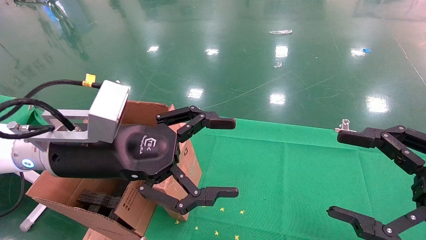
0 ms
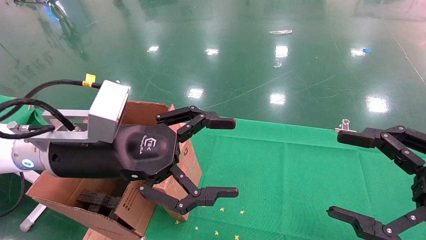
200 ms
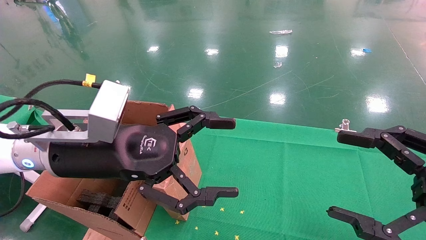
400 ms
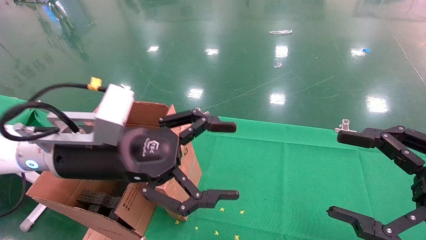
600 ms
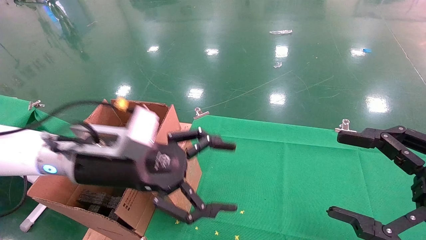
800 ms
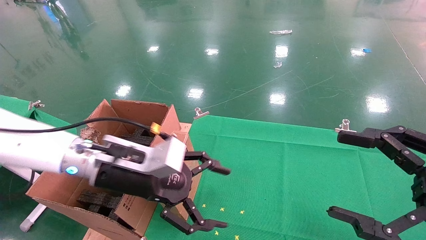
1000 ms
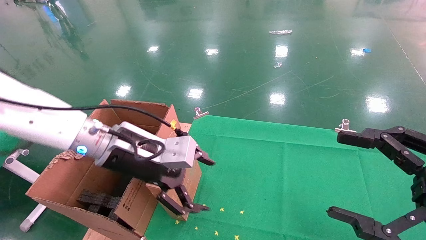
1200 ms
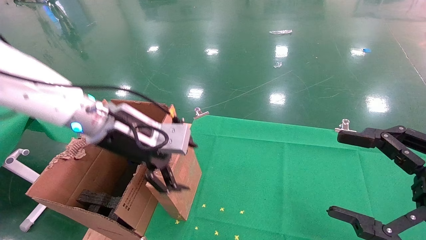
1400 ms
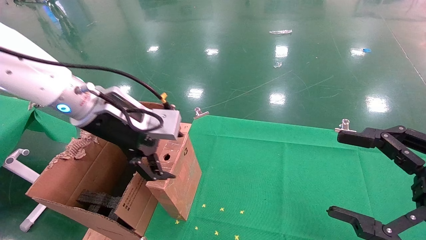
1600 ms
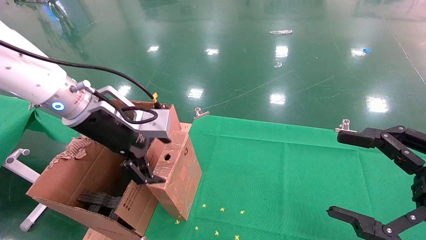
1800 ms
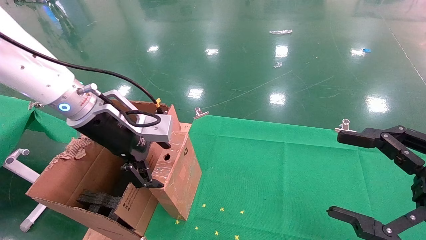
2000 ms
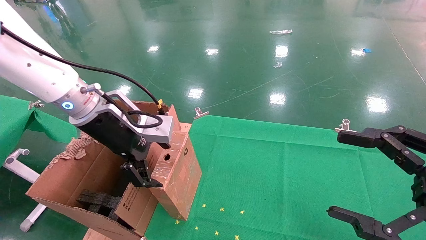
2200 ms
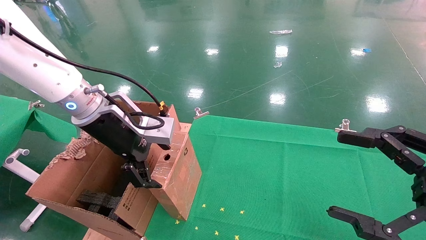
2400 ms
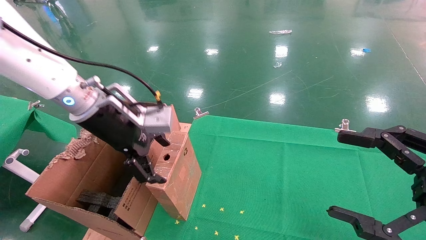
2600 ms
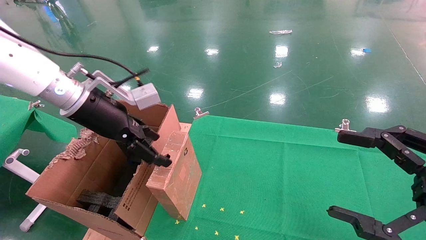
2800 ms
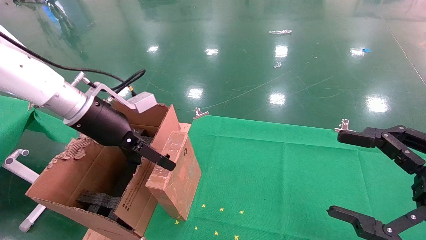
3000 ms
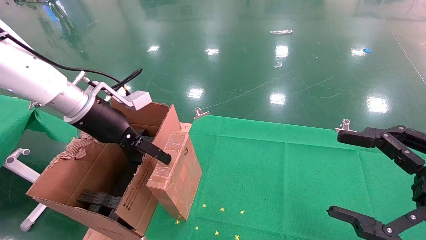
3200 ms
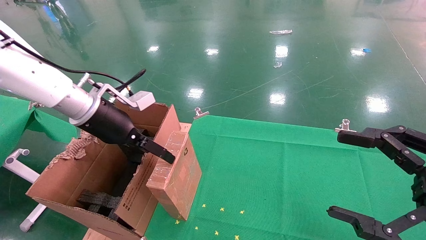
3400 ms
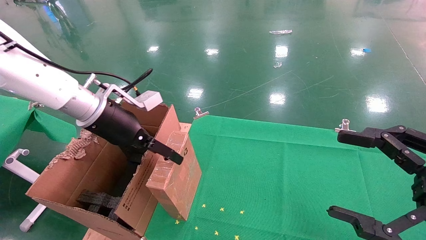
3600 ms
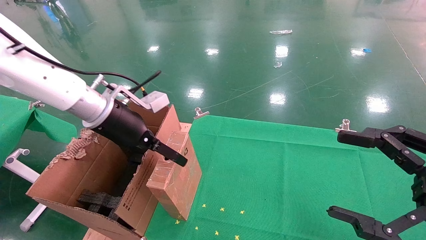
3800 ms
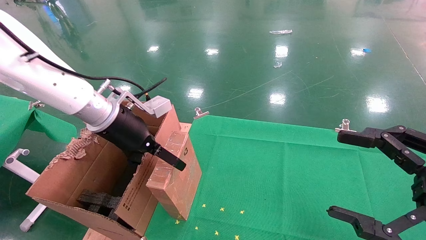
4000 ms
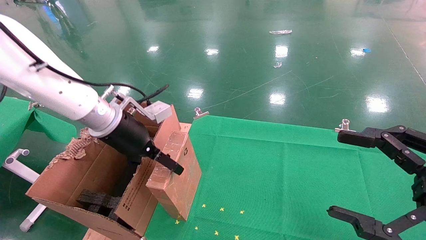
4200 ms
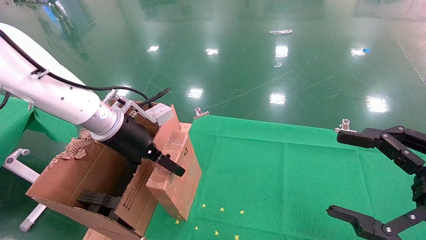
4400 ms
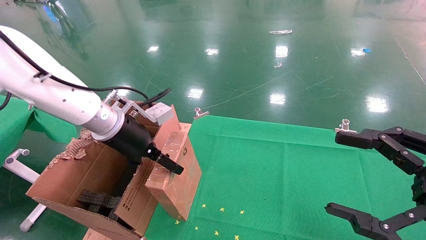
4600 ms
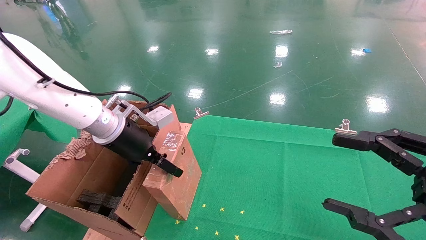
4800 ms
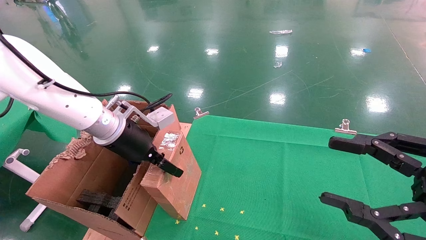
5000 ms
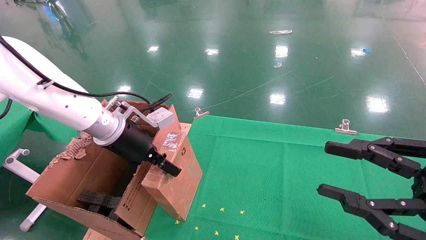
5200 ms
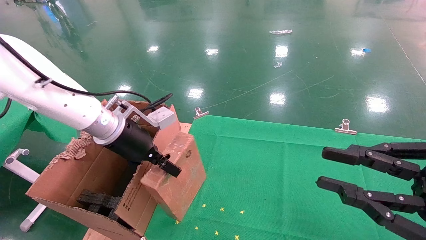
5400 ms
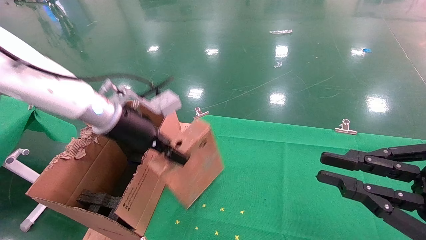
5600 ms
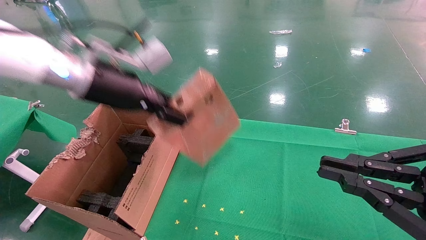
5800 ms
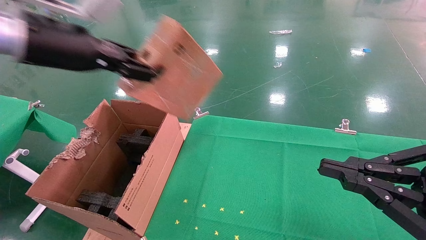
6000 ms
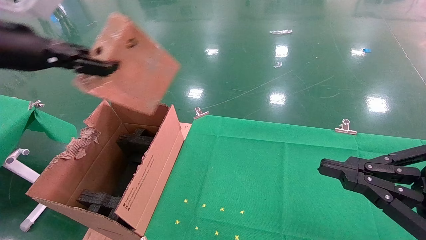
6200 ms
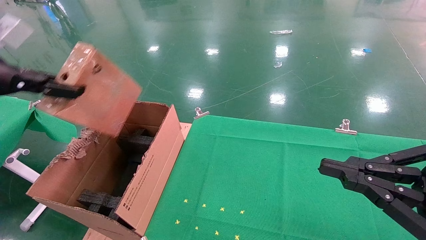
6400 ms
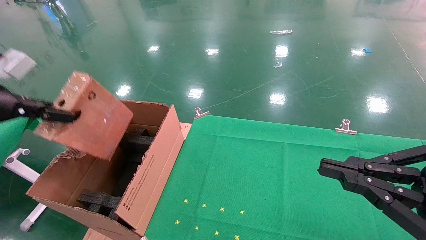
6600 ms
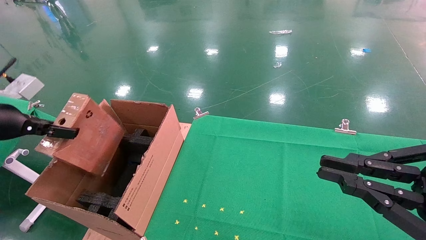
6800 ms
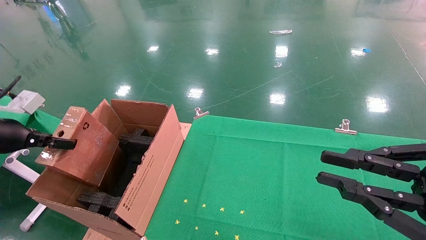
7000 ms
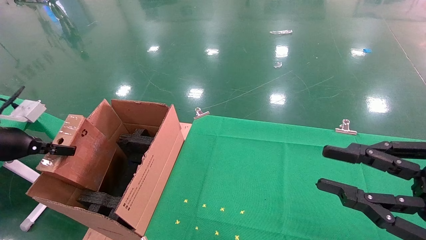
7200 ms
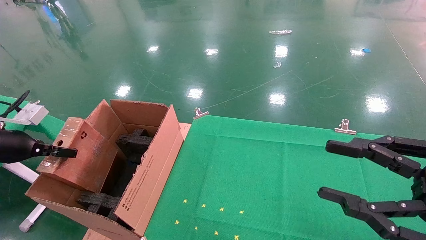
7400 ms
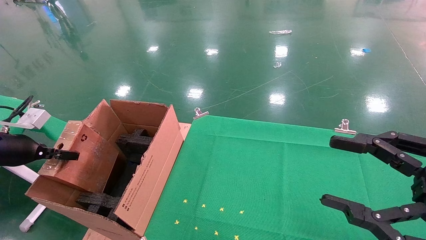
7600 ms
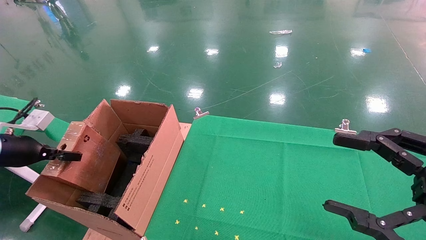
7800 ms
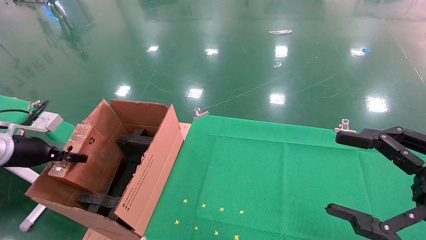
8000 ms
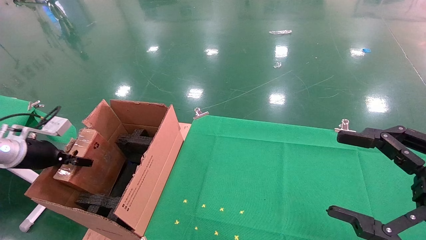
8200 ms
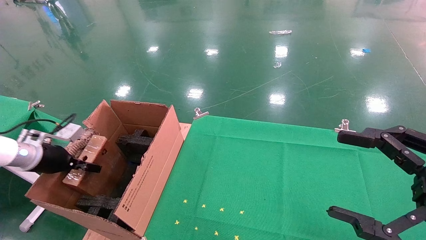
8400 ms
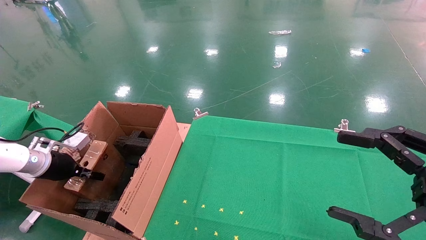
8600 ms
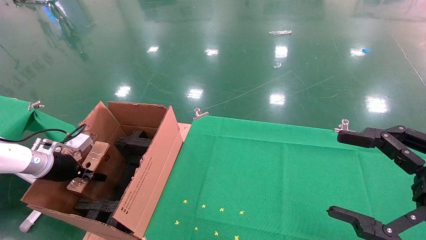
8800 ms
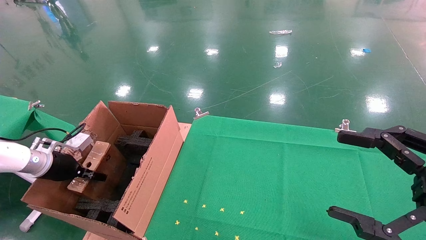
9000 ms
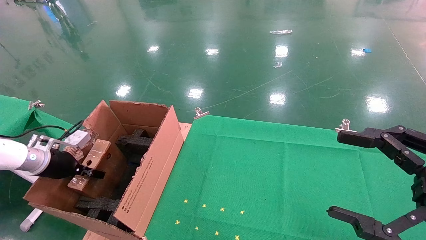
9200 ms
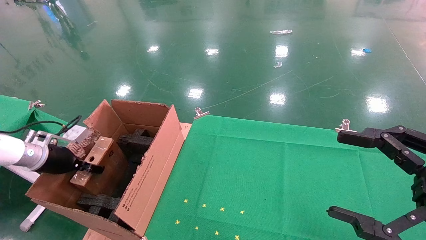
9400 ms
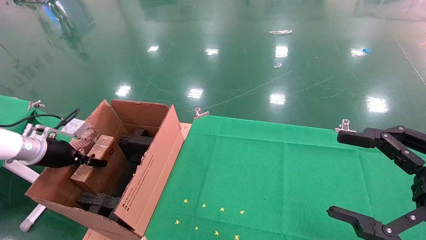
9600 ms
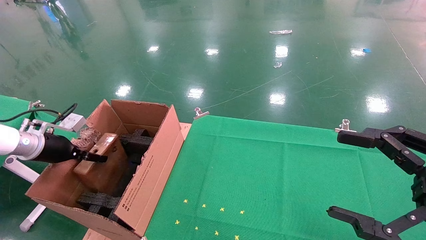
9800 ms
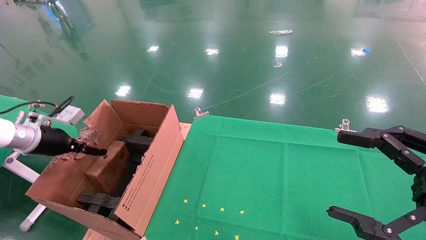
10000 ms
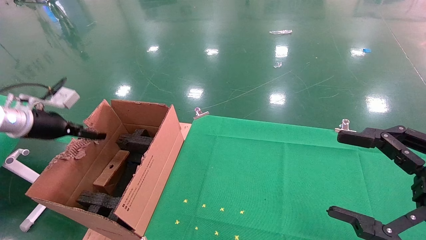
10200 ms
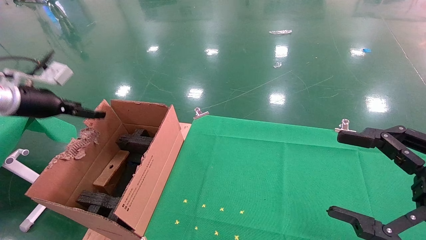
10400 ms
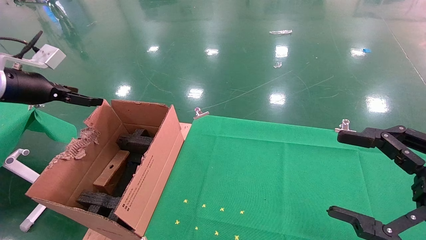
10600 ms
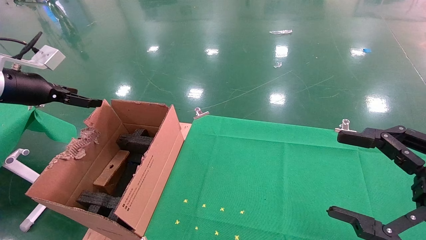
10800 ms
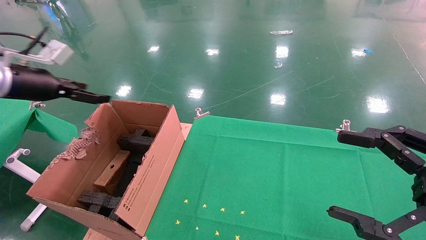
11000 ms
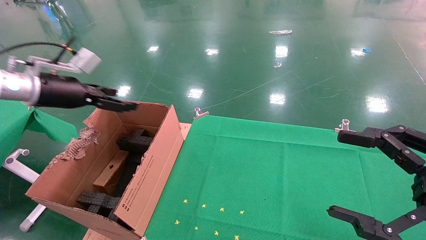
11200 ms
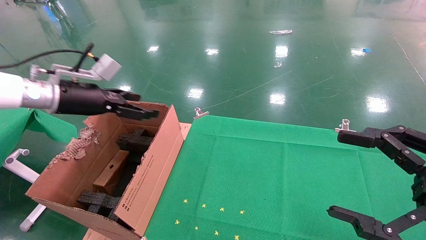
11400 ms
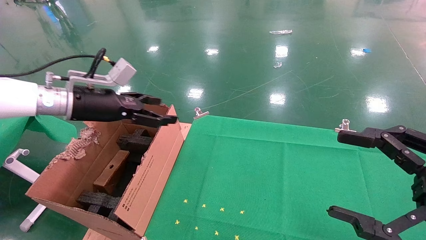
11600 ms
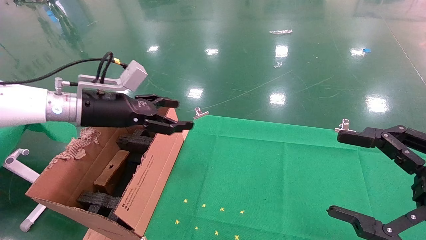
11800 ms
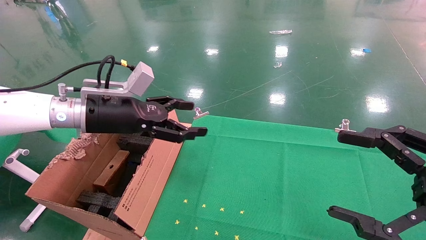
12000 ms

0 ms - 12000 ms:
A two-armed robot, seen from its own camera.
Task of the whole recording: using a robotic arm to pick up a cardboard box and palace it the carton.
Step, 800 ms - 5400 ms: Pick up the mouse and the power cord paper box.
Step, 5600 ms - 10400 ms: Place the mouse and the power cord paper box into the container.
0 ms - 1600 ms: The left gripper is displaced forward by approximately 5 cm.
1600 ms - 3000 ms: The left gripper heads to the left, covering some 5 cm.
3000 ms - 4400 ms: The left gripper shifts by about 5 cm.
4400 ms - 6000 ms: The left gripper moves upward, to the left and backward, some 15 cm, and closes up, while the right gripper closes.
6000 ms - 7600 ms: The right gripper opens its fingers. The left gripper heads to the left and downward, covering some 30 cm.
7600 ms - 9000 ms: The left gripper moves downward and forward, about 10 cm, while the right gripper opens.
9000 ms - 10400 ms: The left gripper goes roughly 15 cm upward, and opens its fingers.
10400 ms - 12000 ms: The left gripper travels to the right by roughly 20 cm.

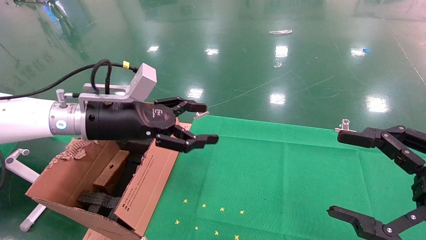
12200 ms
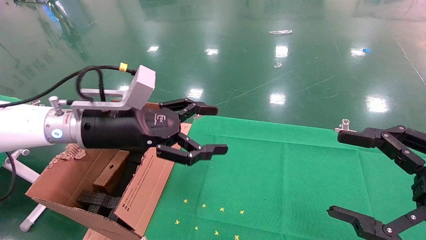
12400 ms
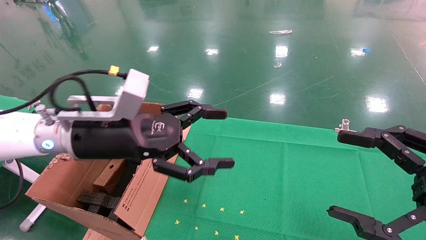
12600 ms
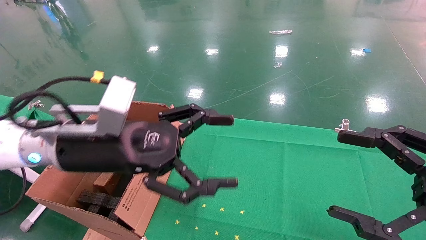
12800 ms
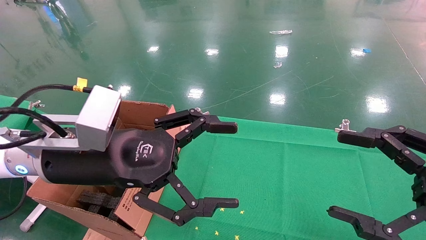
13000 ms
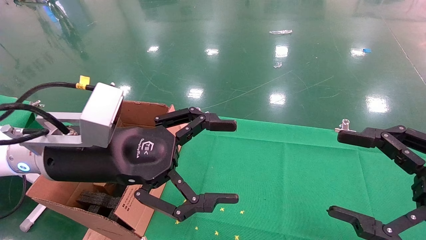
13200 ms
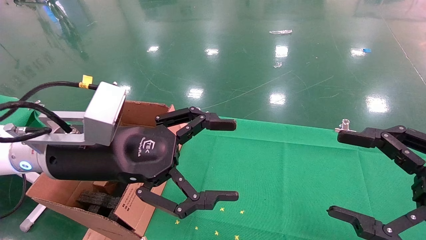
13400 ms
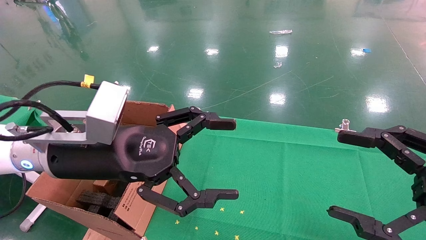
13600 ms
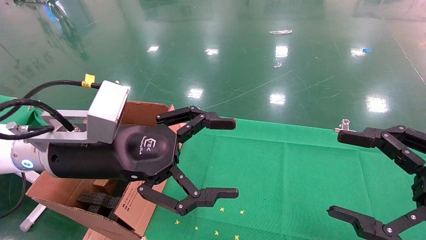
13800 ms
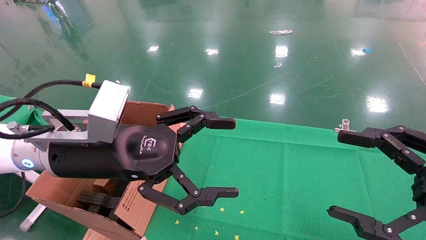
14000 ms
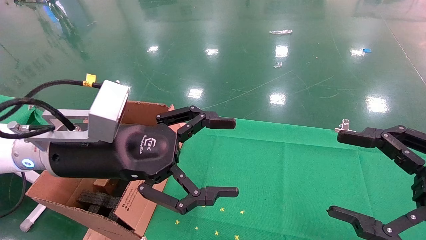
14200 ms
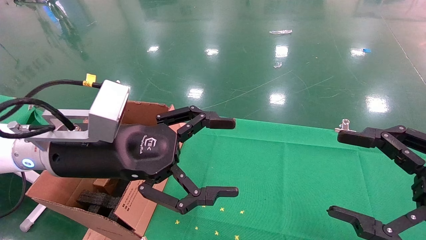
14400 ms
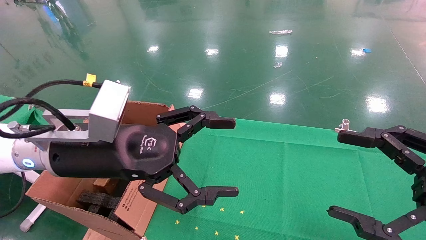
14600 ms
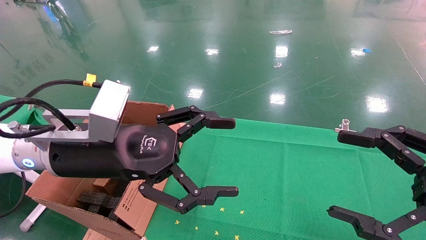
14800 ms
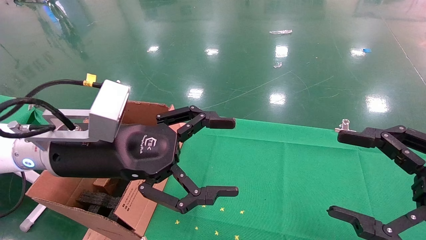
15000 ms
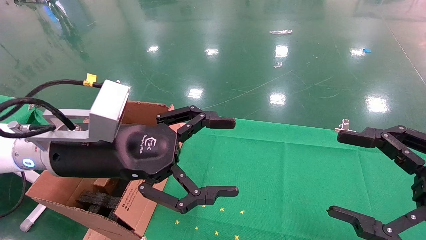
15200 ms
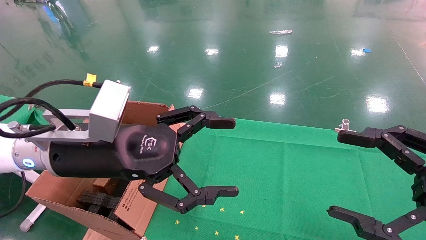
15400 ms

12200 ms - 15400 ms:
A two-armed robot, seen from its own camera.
Task of the whole recording: using a robotic arm to pick up a cardboard box and palace it the carton.
12200 ms - 13800 ms: The left gripper shifts some 10 cm backward.
13800 ms - 15400 ms: Both grippers stay put.

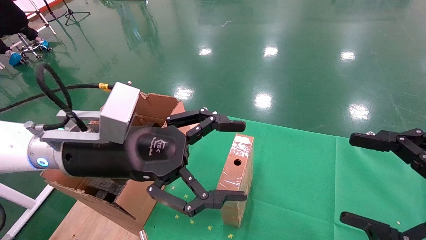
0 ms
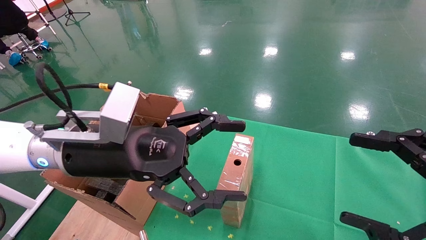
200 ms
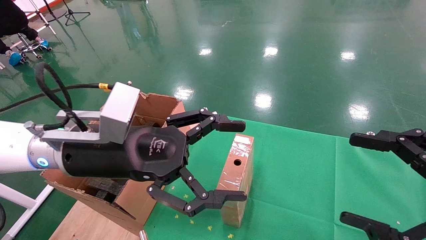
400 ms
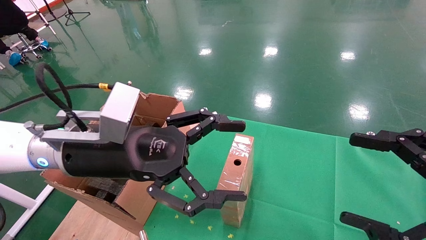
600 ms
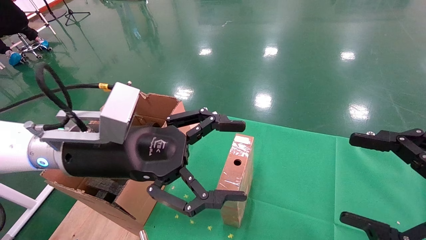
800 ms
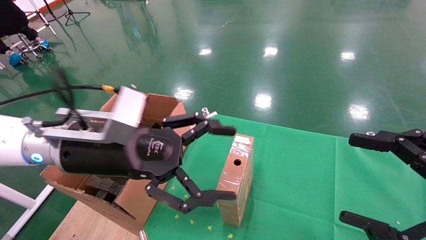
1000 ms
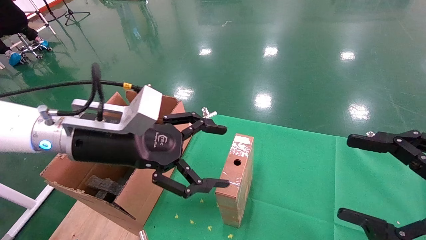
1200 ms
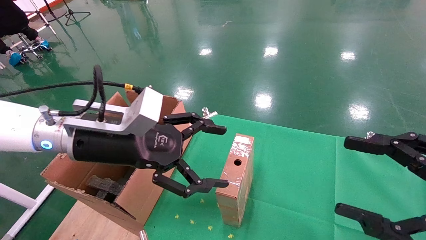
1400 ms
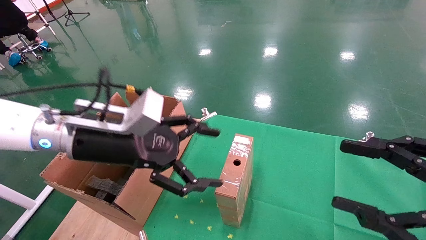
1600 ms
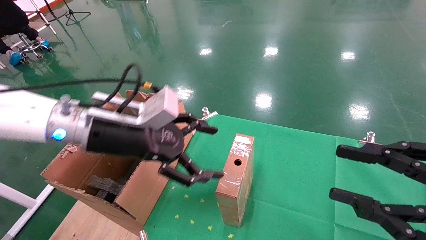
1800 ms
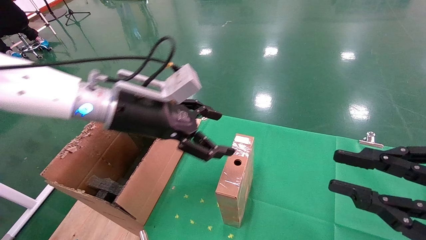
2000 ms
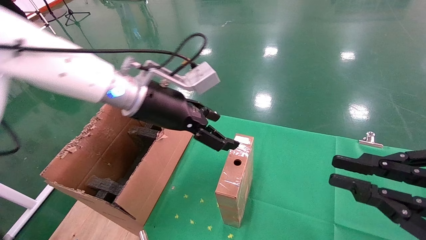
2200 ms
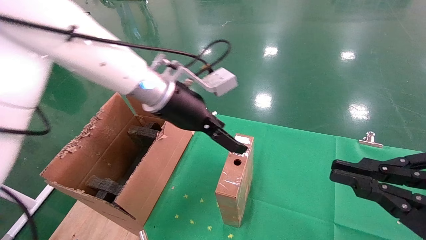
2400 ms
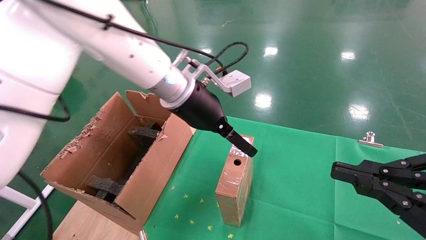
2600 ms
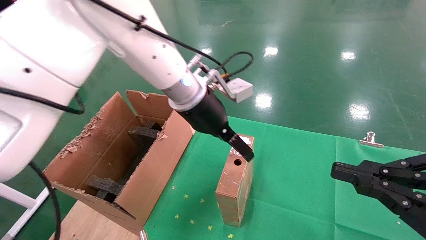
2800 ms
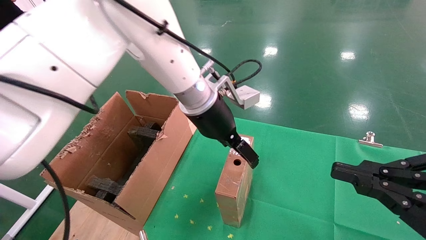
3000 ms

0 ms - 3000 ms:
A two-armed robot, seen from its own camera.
Task of the whole recording: using a robotic arm to pick up a cardboard box and palace it the carton.
1600 ms - 3000 ms: The right gripper closes up, while the left gripper goes about 20 cm to the right and forward.
